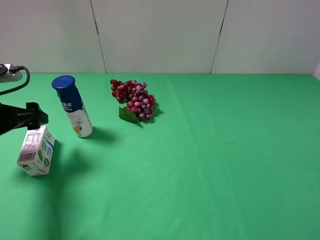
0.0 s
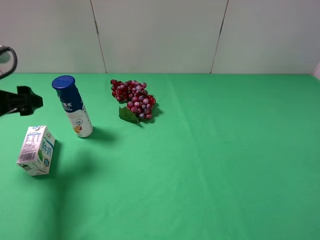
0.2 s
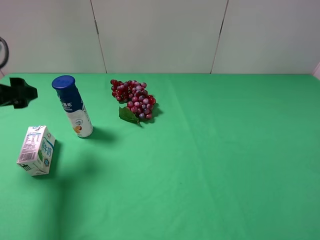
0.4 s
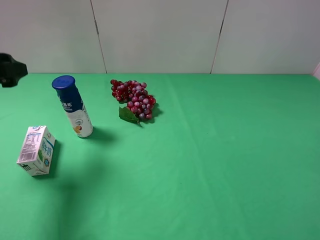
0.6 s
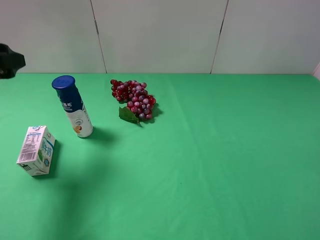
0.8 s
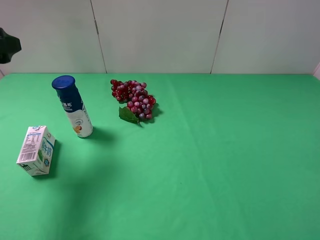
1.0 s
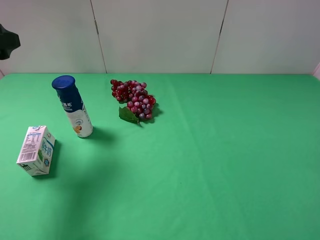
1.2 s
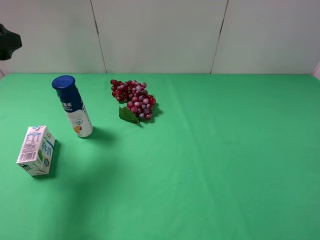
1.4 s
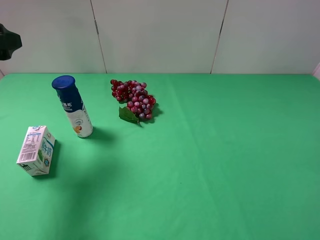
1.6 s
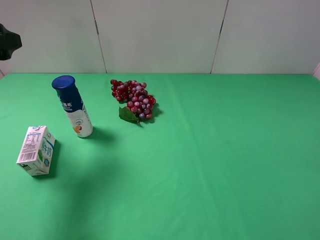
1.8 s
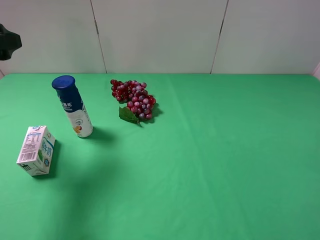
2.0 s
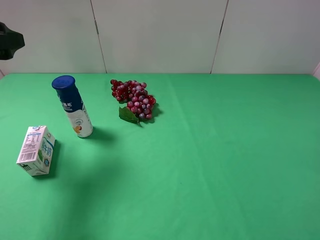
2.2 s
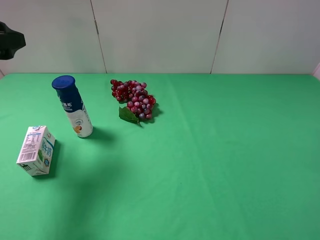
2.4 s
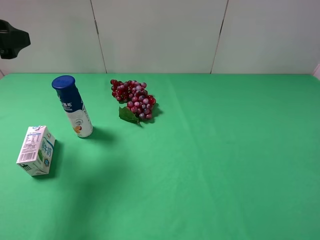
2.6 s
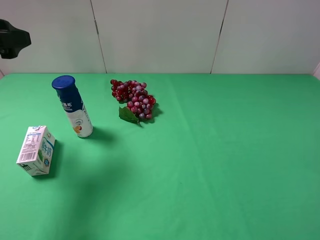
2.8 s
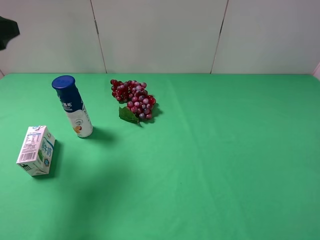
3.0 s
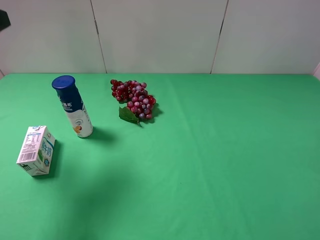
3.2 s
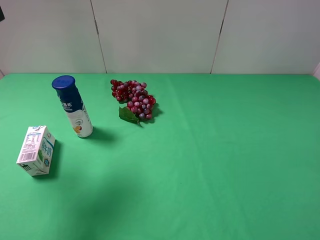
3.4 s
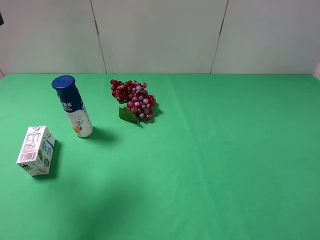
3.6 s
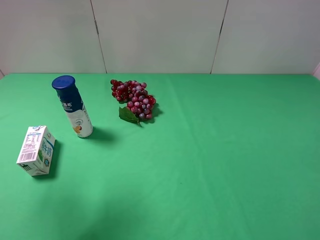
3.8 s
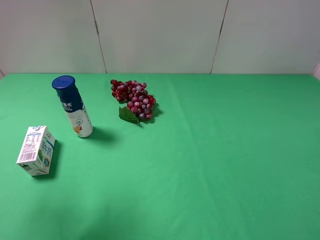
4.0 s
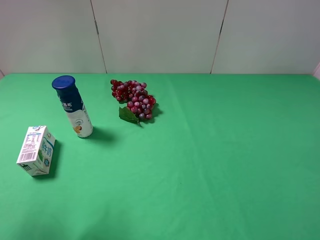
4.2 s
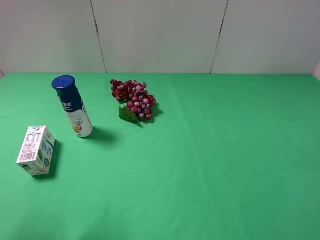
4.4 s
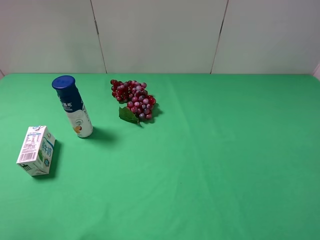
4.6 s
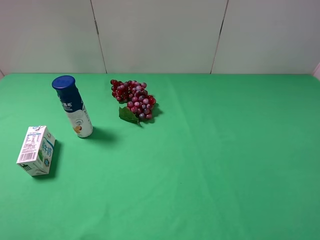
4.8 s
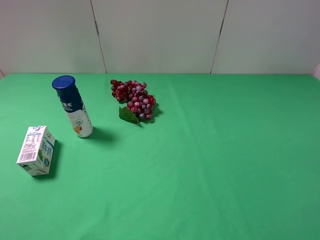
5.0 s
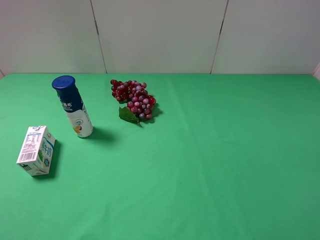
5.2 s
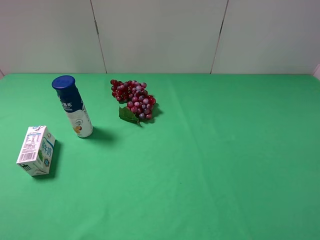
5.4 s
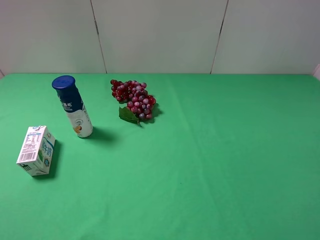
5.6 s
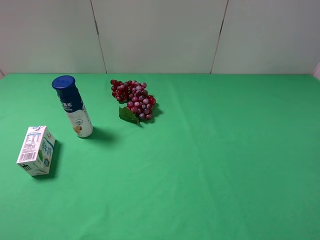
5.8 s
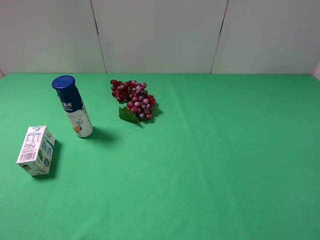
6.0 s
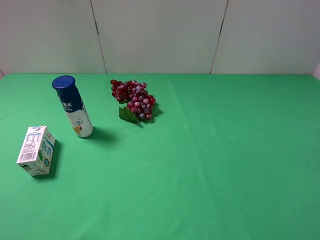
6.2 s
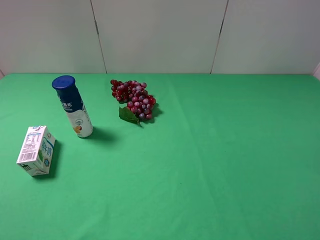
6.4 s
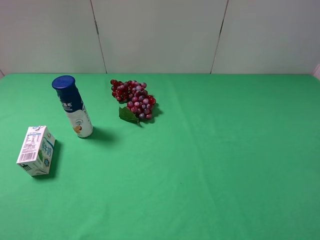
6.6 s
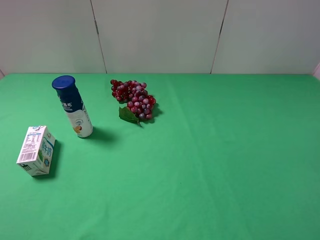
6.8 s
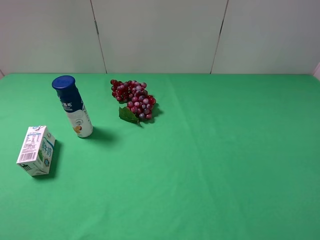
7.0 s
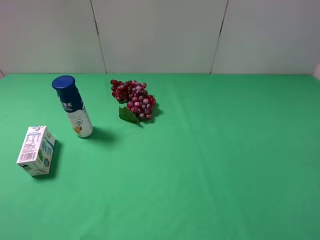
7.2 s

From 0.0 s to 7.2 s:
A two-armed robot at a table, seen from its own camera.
Task of the whole recording: use the right gripper to pick up the item and transfer it from the right gripper to the left gripper.
From 0.0 s to 1.4 s: The left gripper goes some 10 cm upward.
From 2.8 s to 4.4 s: The left gripper travels backward by about 15 cm.
From 5.8 s to 7.2 s: Neither gripper changes place.
